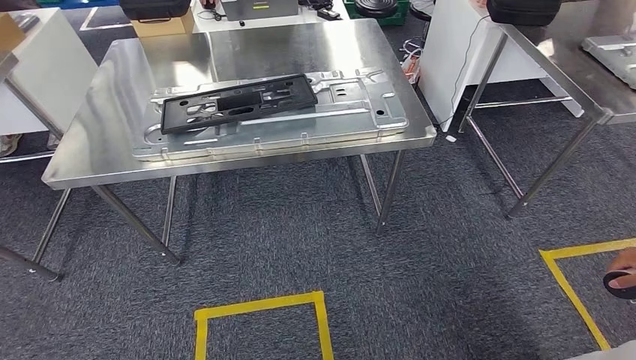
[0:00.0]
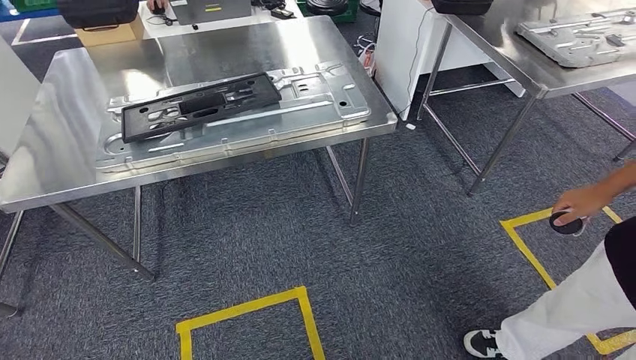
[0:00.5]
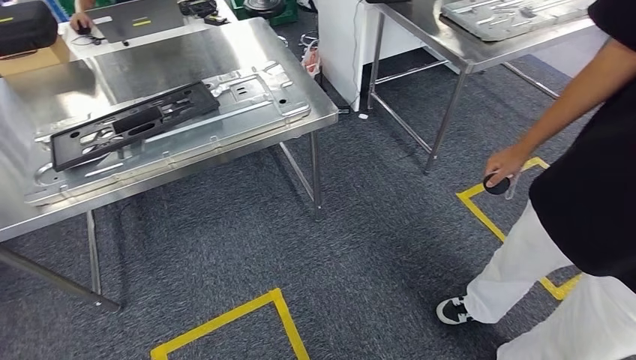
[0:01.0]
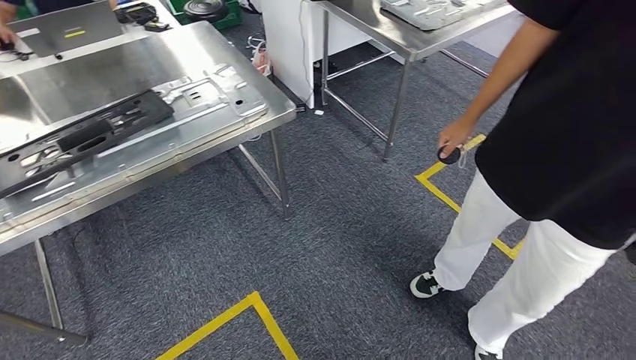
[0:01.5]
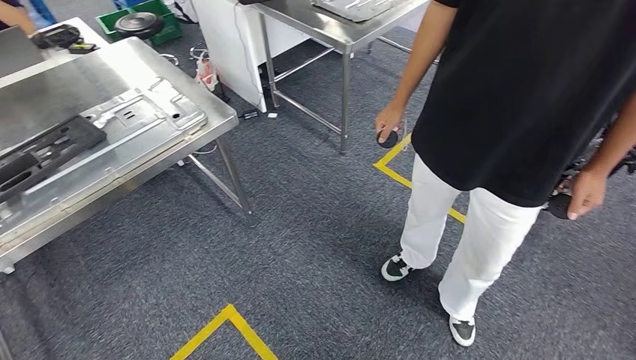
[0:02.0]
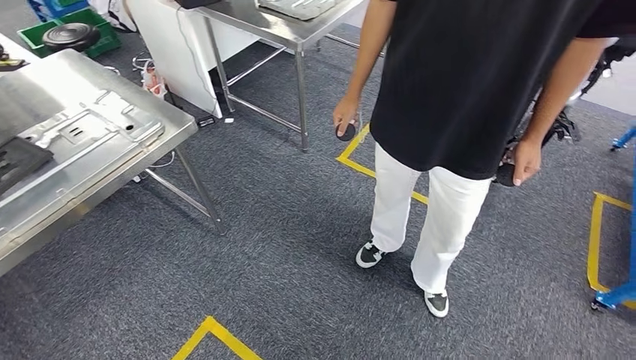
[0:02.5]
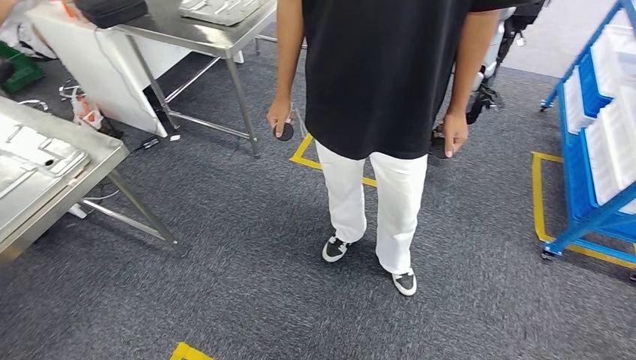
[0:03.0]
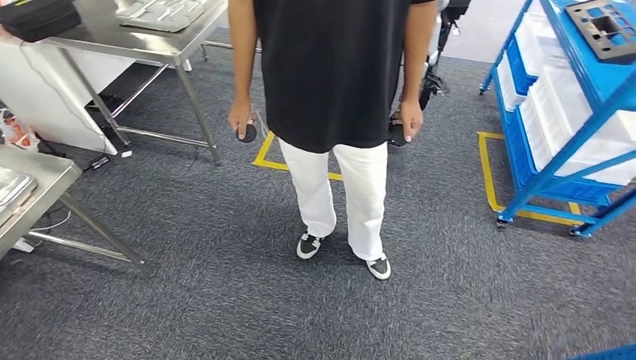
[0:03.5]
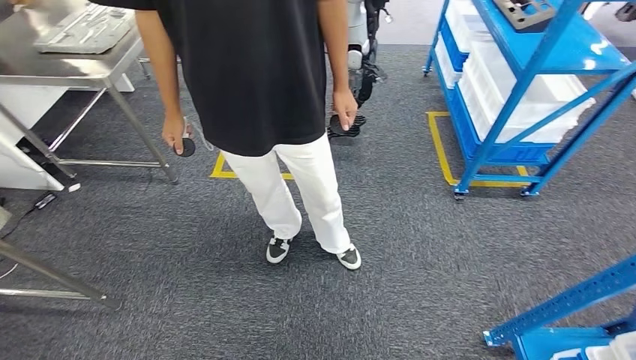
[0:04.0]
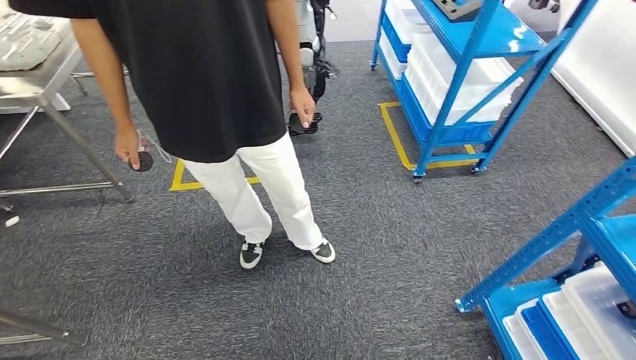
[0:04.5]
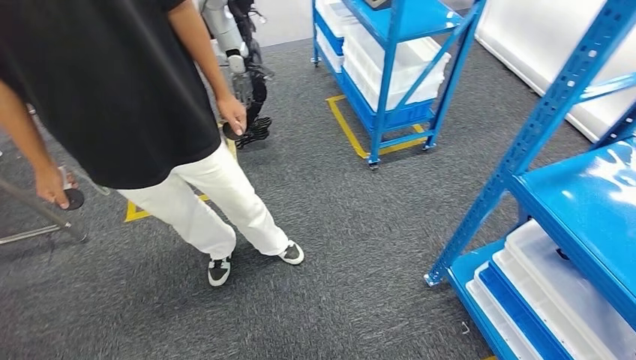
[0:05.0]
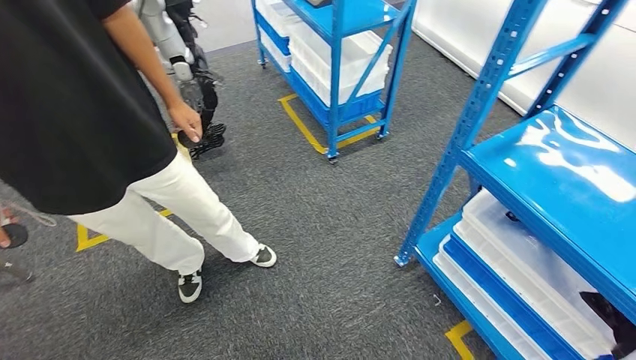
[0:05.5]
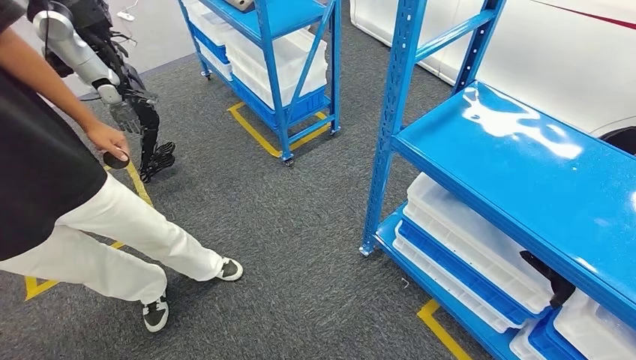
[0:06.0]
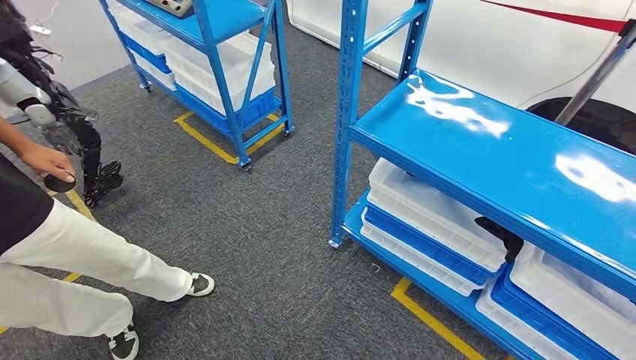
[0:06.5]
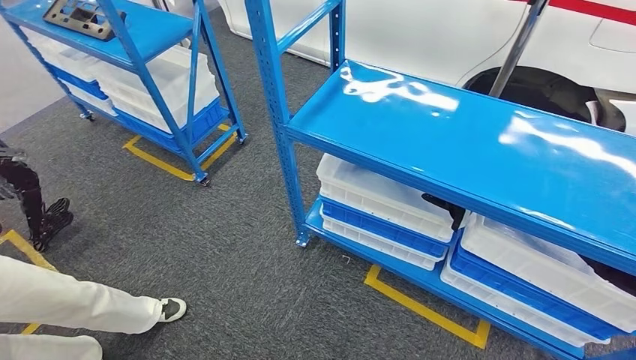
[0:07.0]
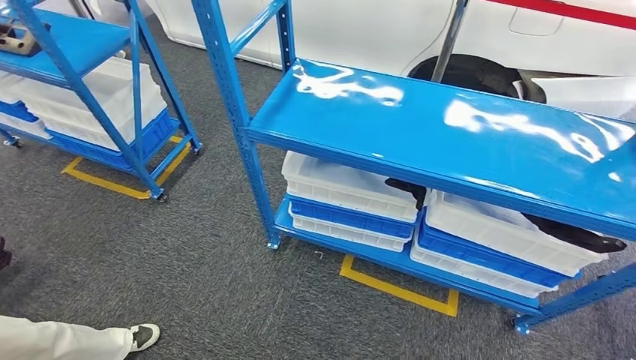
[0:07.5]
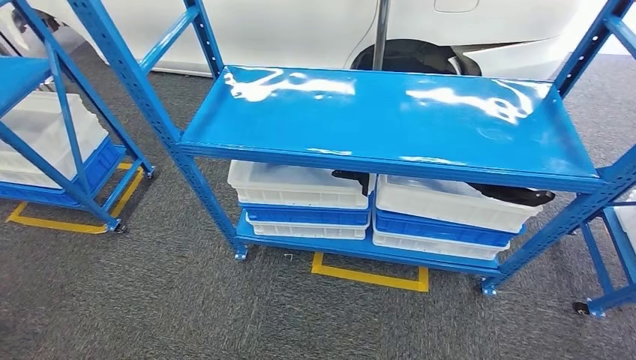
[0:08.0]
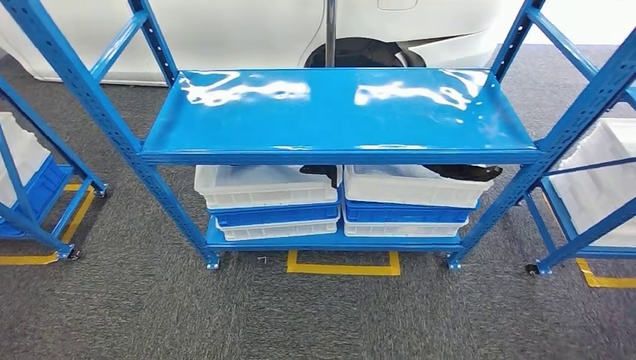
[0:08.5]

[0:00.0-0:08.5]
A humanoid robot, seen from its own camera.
Step, 0:00.0 to 0:08.5: Return to the initial position at the shelf.
